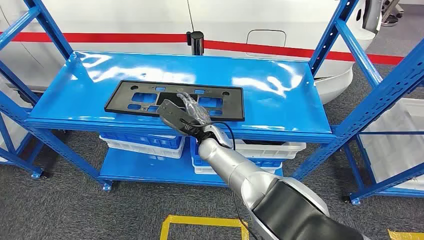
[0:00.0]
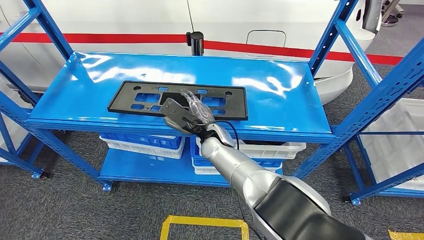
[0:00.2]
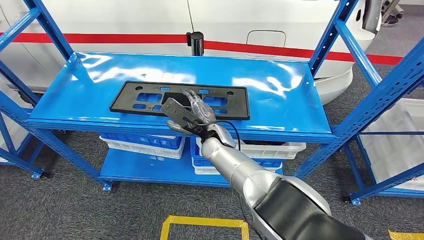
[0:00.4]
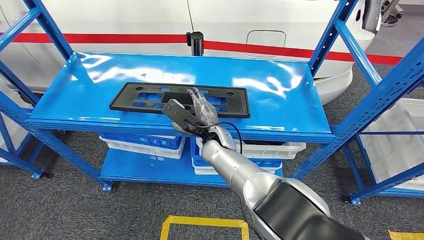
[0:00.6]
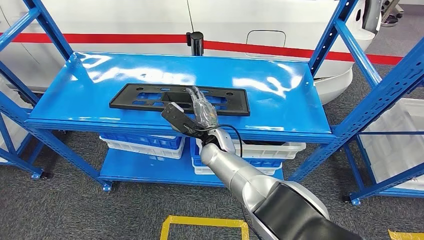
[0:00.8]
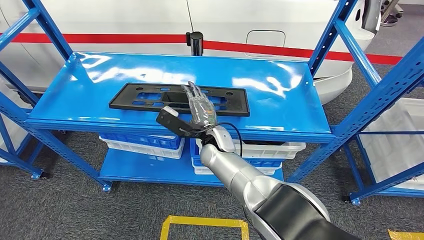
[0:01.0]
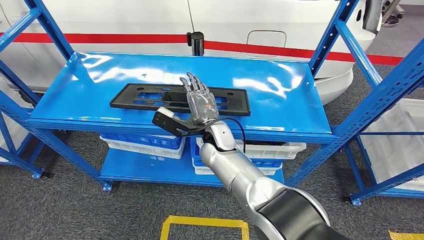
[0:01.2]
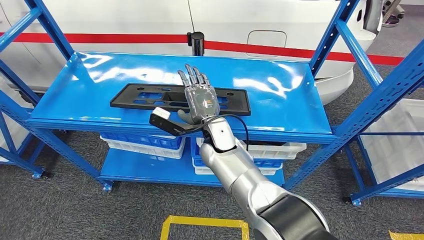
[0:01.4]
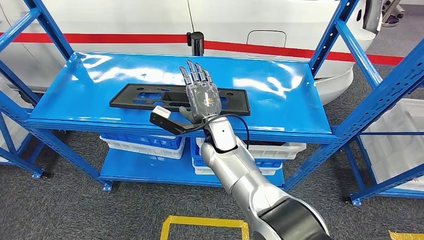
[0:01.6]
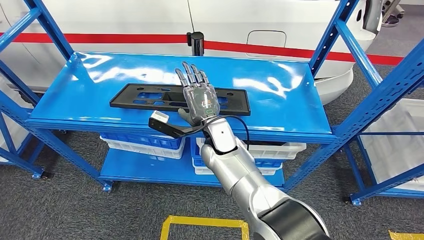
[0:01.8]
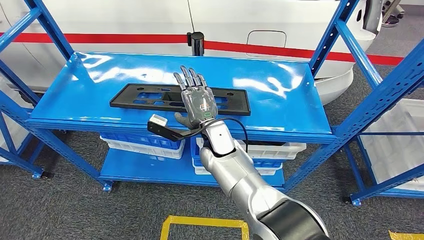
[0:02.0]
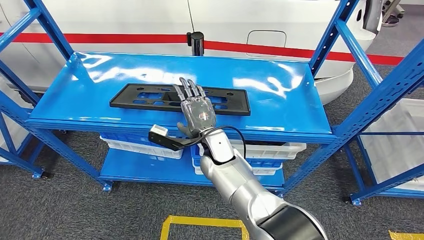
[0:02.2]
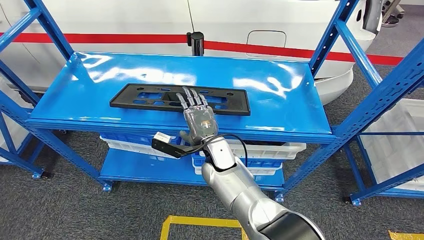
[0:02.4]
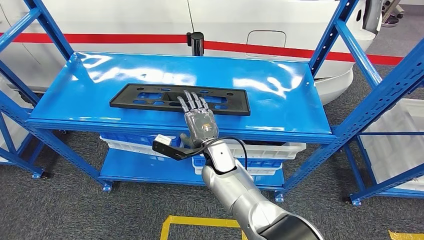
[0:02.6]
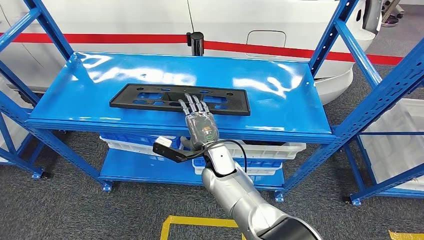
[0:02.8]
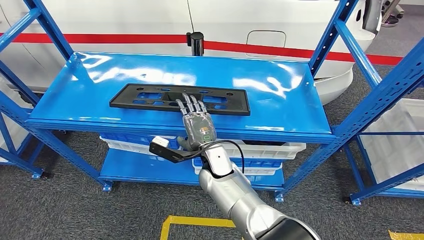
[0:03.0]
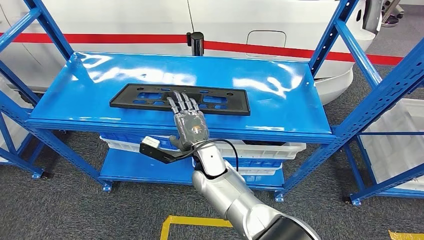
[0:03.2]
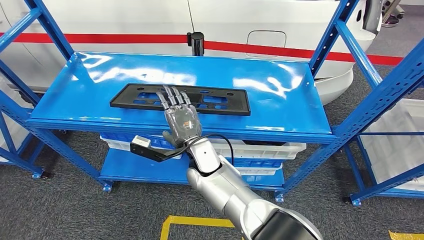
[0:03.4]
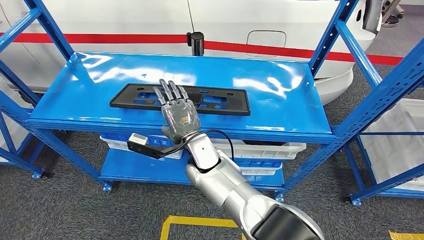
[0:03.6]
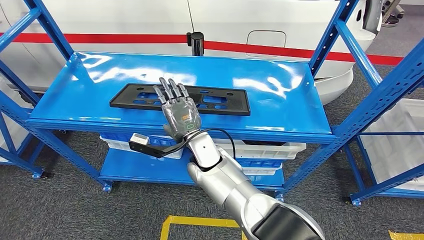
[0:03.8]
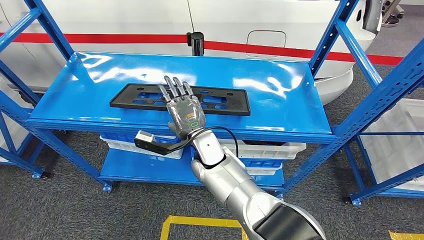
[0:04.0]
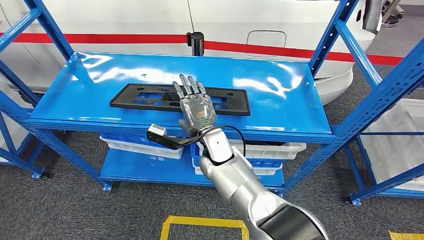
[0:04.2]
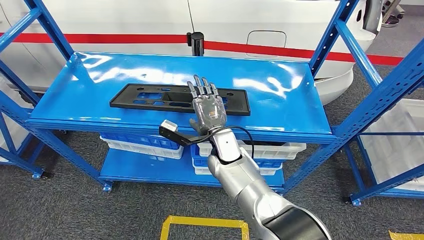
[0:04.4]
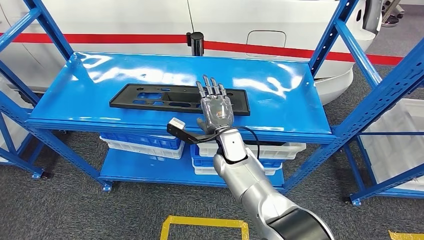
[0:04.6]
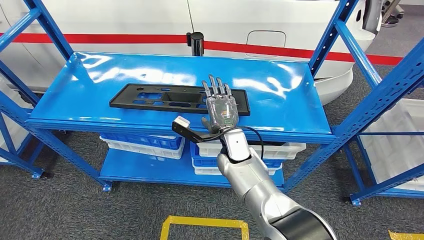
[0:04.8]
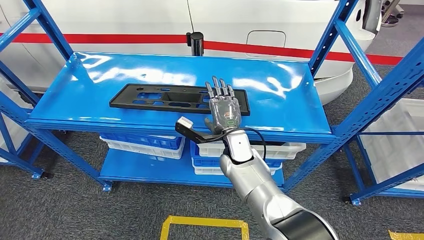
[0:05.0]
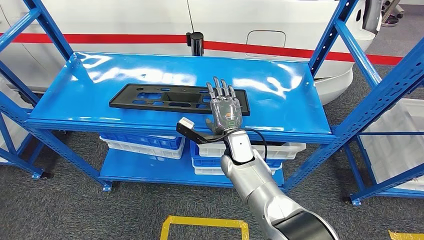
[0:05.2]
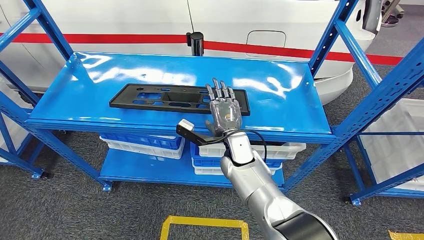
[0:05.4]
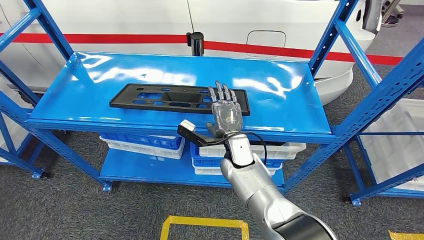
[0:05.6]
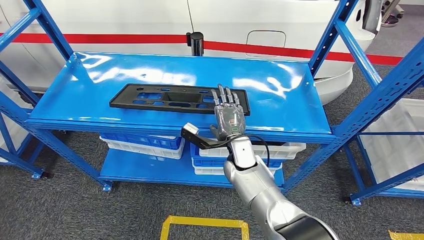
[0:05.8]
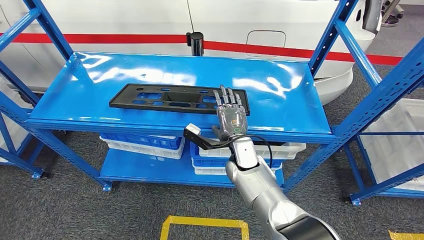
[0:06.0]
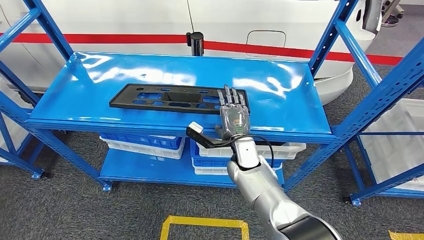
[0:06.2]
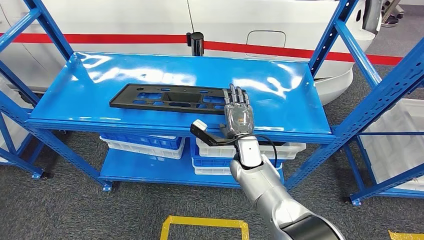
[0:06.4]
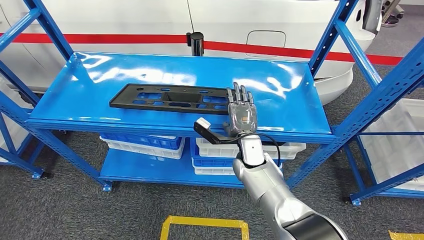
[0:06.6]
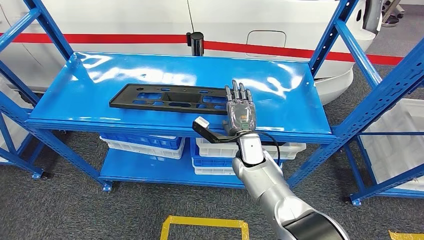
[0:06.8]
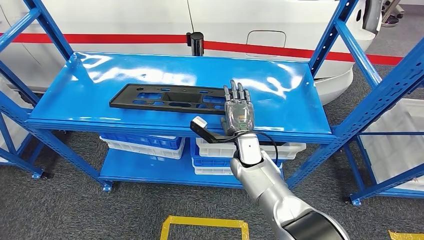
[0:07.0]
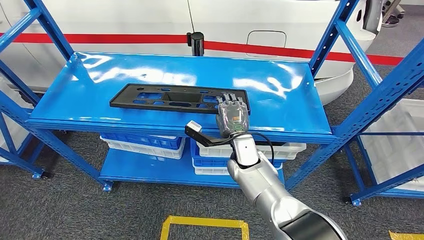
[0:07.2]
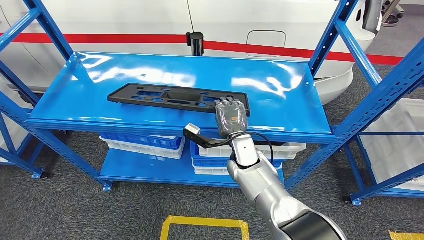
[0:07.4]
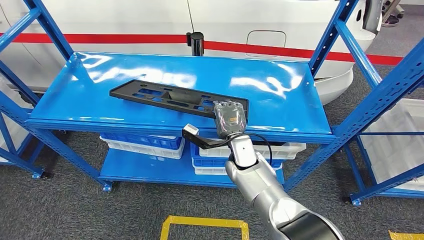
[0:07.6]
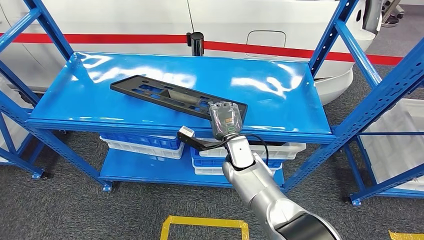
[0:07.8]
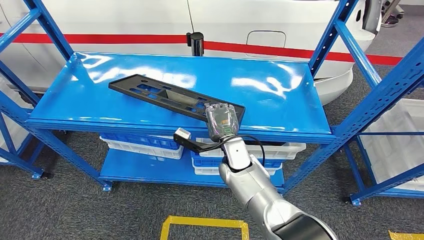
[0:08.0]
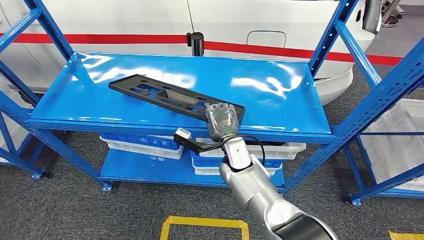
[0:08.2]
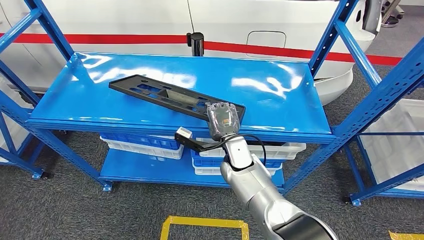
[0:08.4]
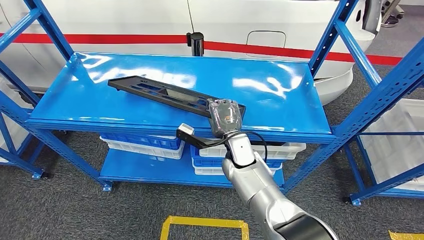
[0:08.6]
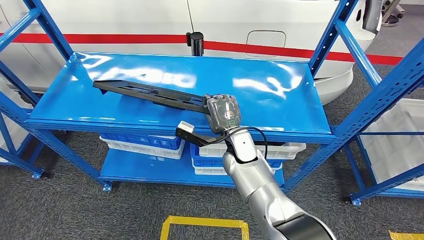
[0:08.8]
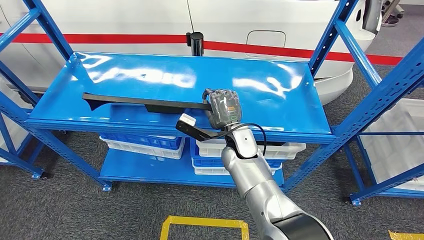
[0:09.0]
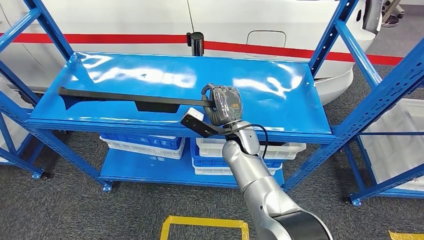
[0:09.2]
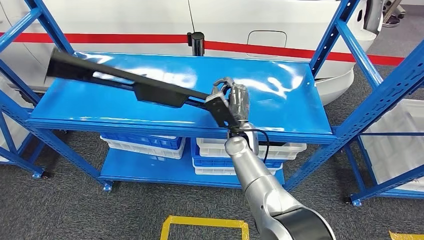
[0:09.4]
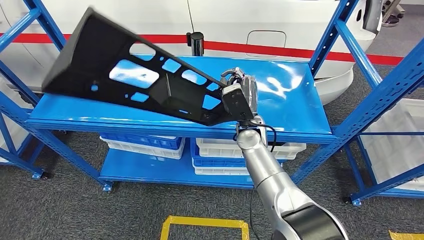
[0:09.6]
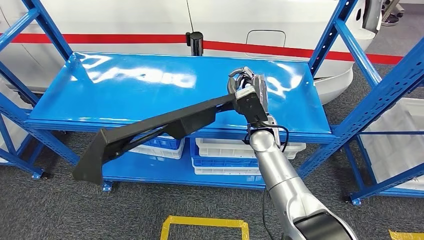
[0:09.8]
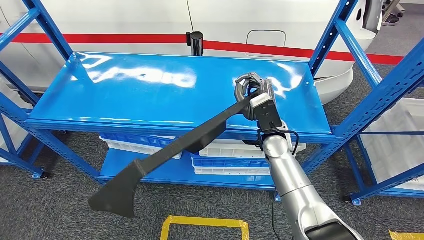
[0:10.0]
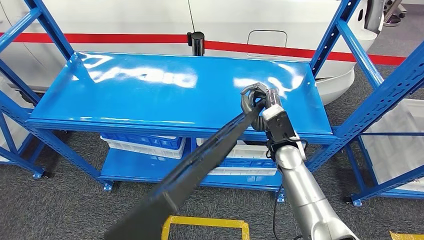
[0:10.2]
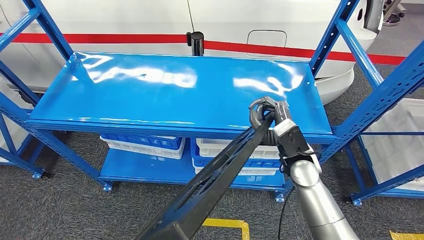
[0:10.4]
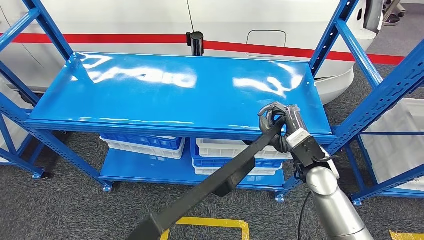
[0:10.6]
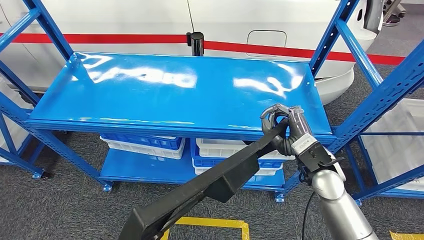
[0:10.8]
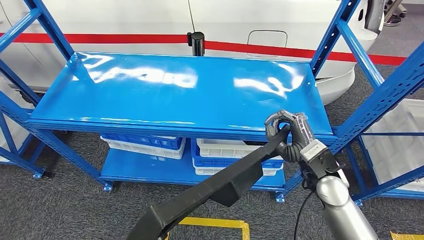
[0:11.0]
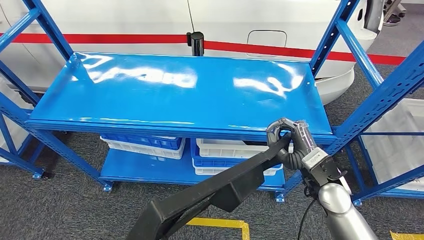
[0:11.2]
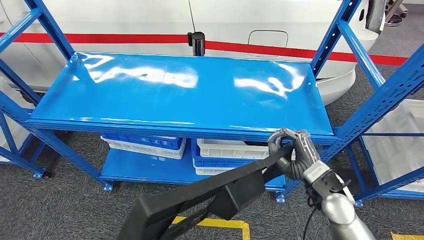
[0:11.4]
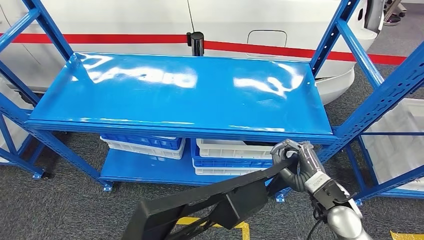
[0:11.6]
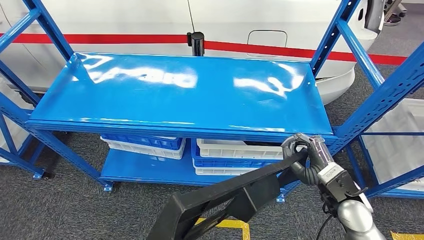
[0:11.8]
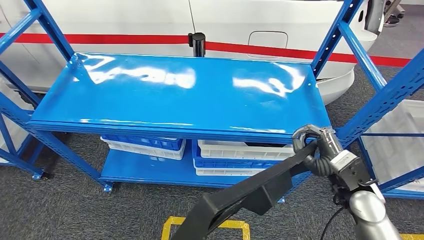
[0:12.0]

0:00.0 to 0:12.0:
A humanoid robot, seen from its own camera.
Step, 0:00.0 to 0:10.2: Pick up the large material from the shelf.
0:01.6 to 0:03.0: The right hand moves downward, roughly 5 cm.
0:03.0 to 0:04.4: The hands stay close to where they were, moving slightly.
0:04.4 to 0:06.0: The right hand moves to the right, approximately 5 cm.
0:06.0 to 0:07.6: The hands make only small movements.
0:09.0 to 0:10.4: The right hand heads to the right and backward, covering roughly 15 cm.

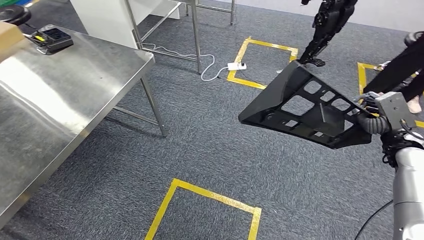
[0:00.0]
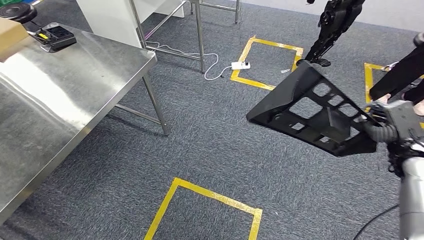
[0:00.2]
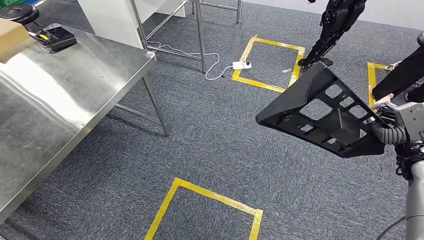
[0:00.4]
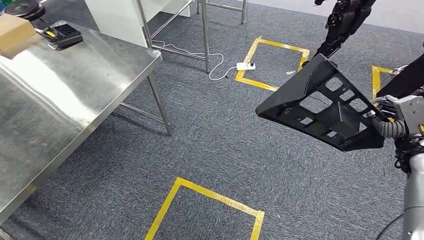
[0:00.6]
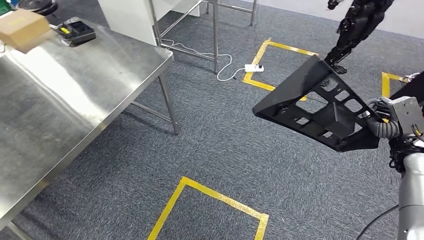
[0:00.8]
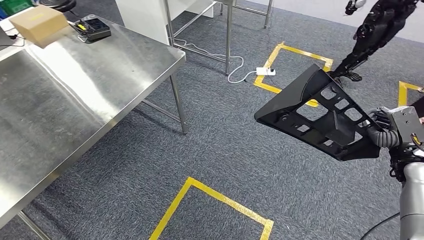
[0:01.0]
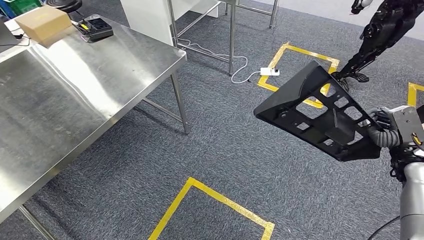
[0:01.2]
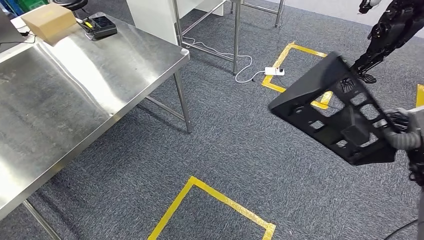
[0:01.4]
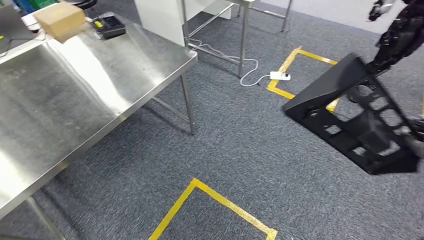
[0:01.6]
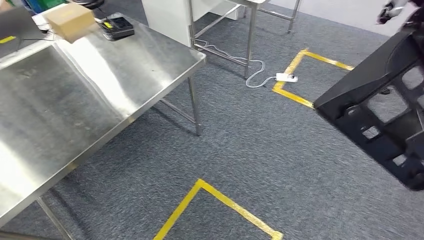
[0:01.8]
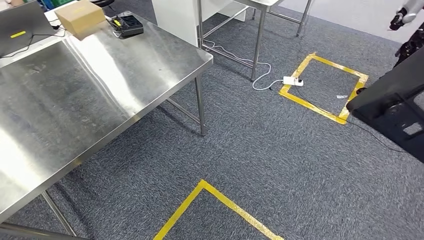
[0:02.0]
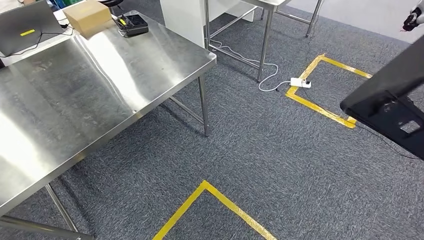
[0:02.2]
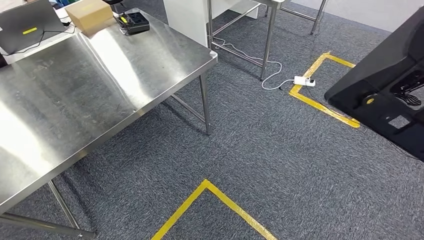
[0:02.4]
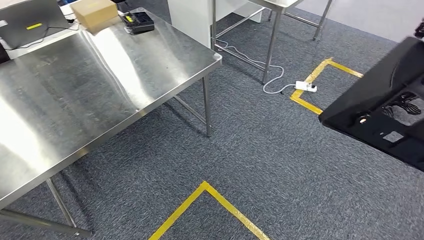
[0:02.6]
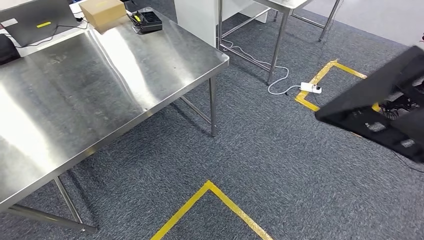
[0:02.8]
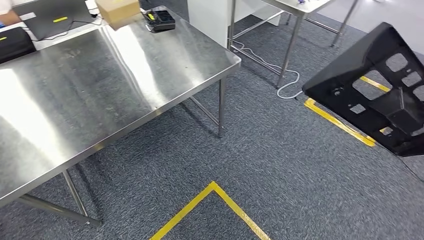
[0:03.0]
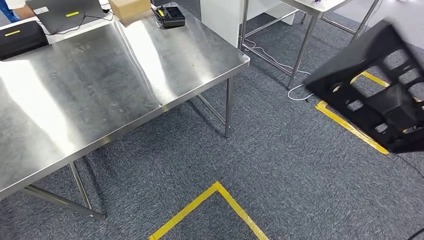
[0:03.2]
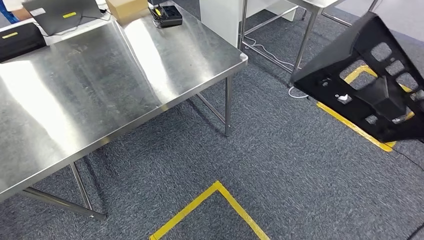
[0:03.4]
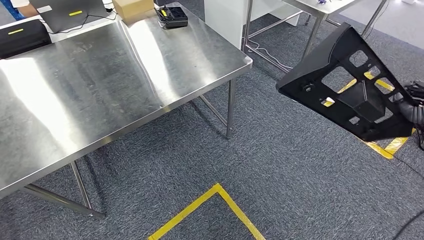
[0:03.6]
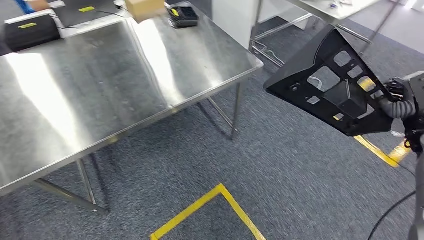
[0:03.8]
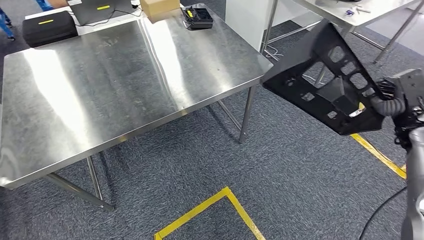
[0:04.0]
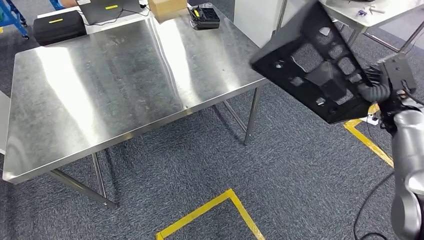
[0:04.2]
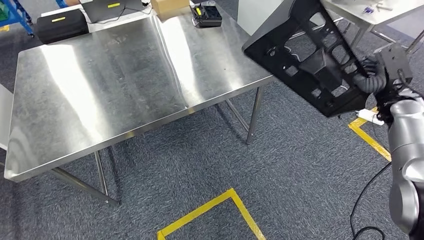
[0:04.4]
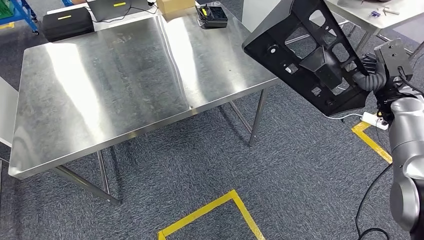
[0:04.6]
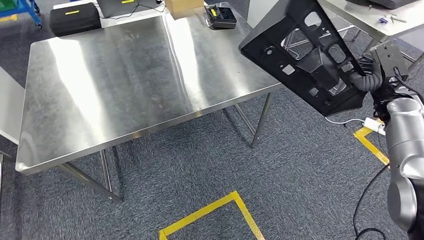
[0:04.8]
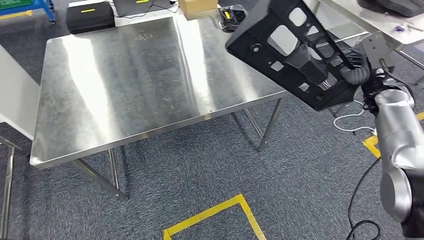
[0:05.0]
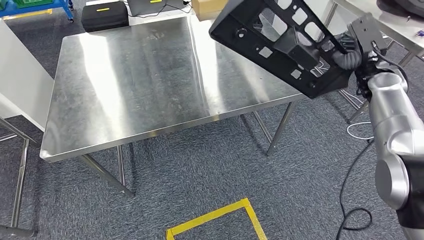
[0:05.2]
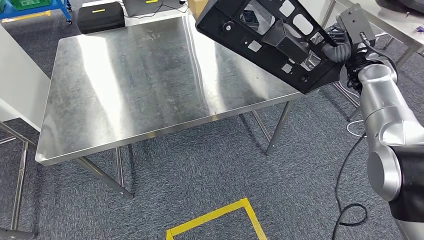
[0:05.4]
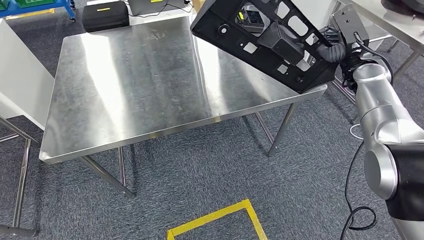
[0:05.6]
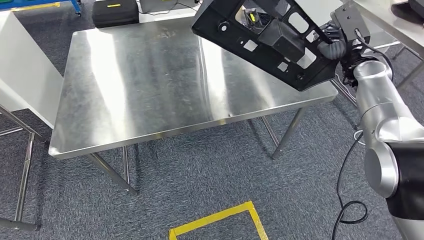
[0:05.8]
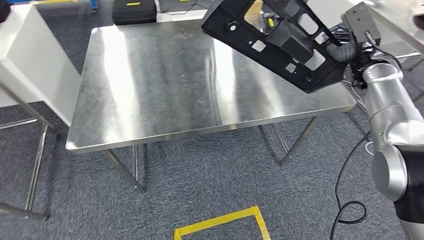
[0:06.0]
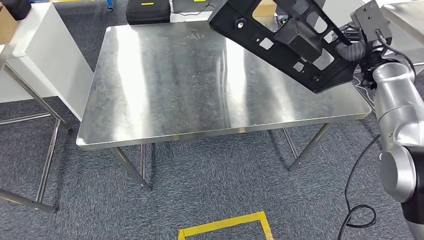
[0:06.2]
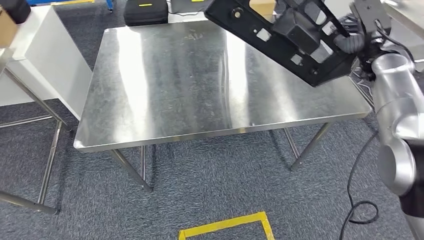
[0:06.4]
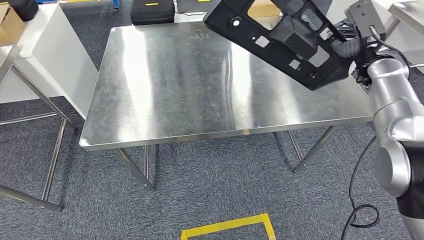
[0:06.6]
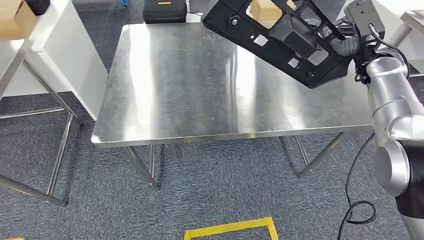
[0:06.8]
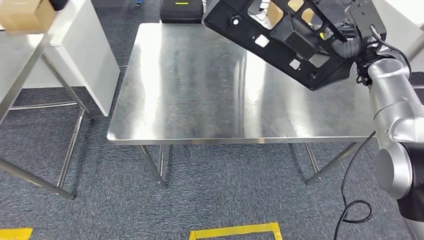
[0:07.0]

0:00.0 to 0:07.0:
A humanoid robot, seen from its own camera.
Step, 0:00.0 to 0:04.8: Move the large material to the workbench.
